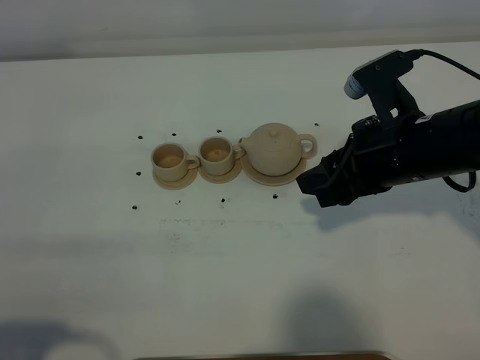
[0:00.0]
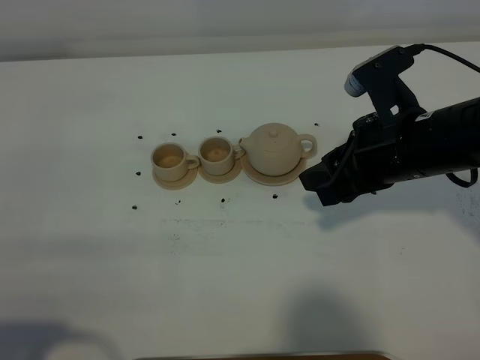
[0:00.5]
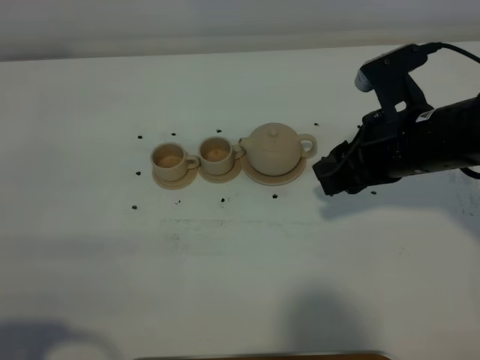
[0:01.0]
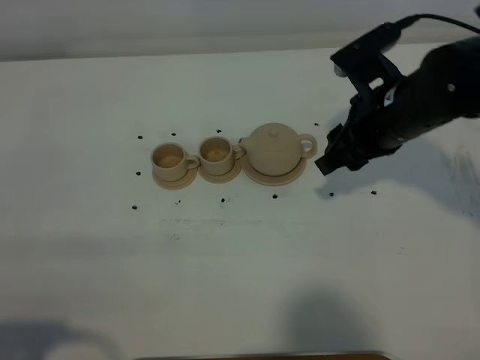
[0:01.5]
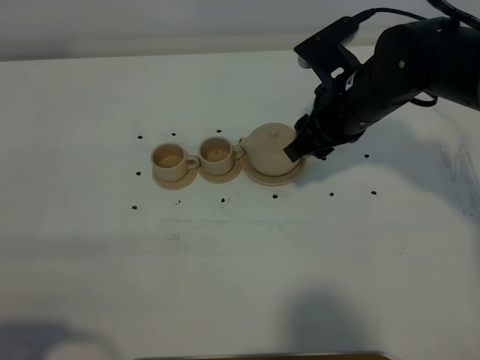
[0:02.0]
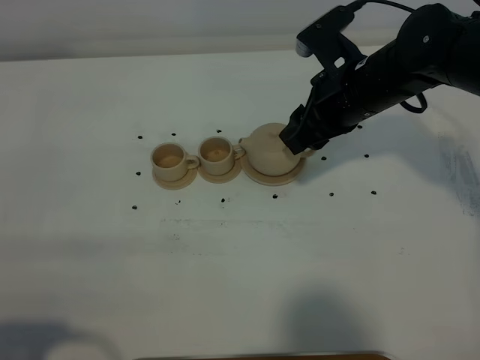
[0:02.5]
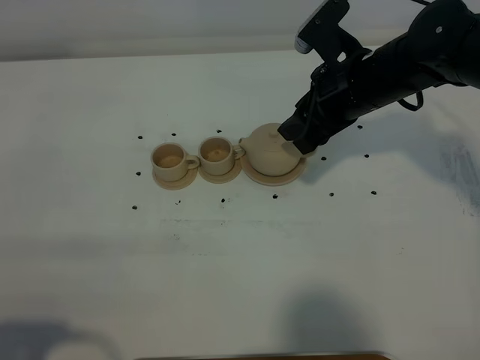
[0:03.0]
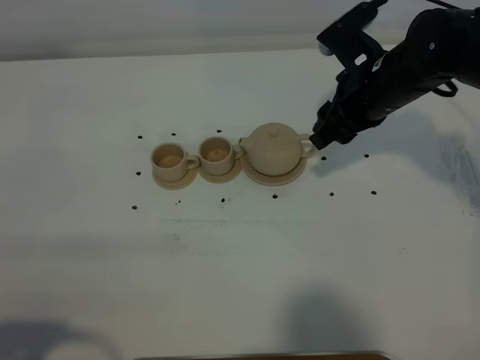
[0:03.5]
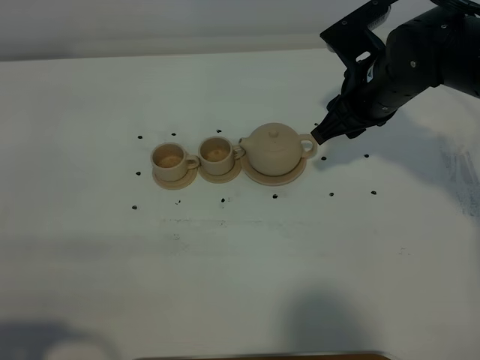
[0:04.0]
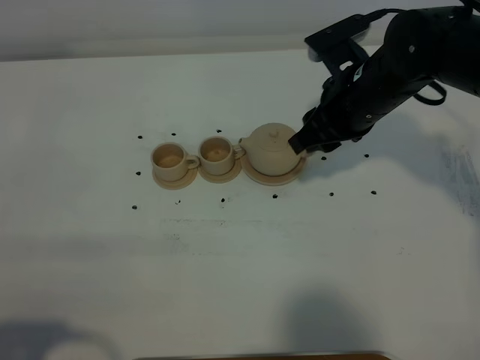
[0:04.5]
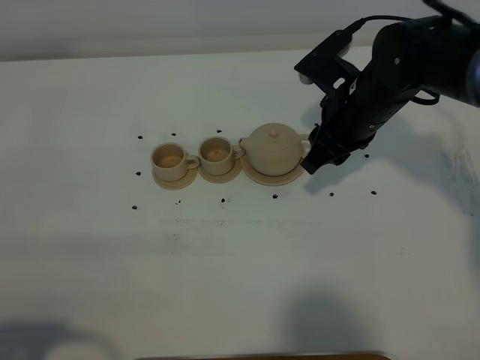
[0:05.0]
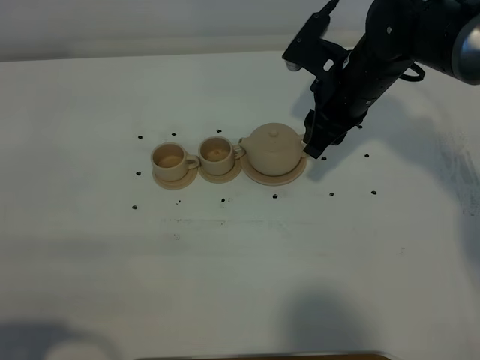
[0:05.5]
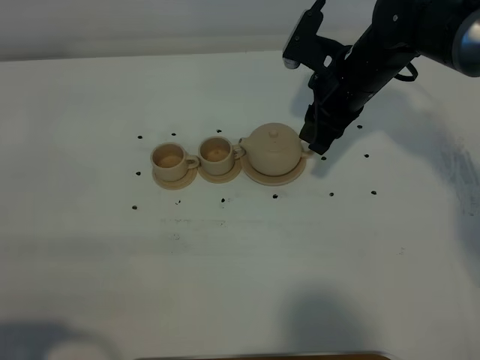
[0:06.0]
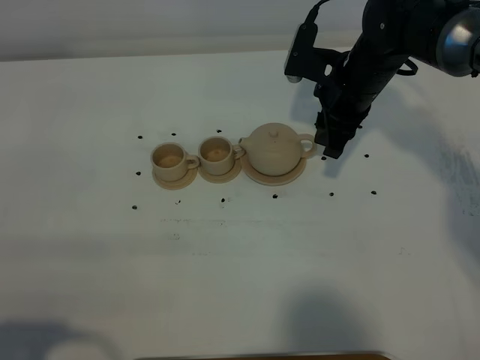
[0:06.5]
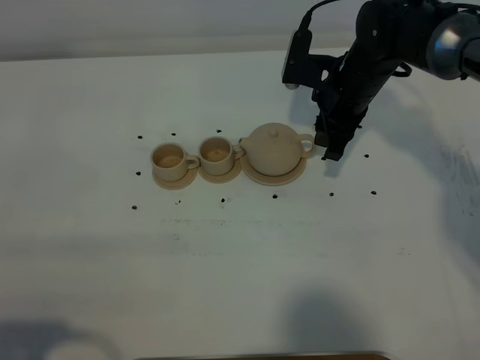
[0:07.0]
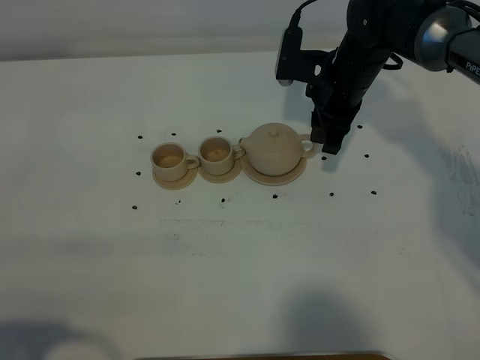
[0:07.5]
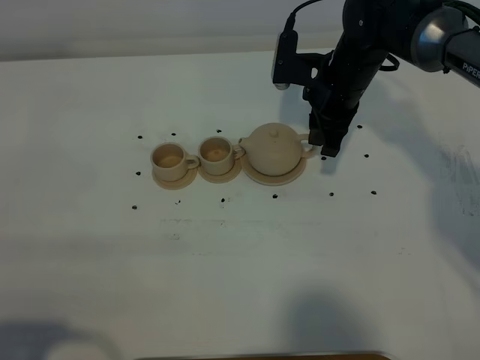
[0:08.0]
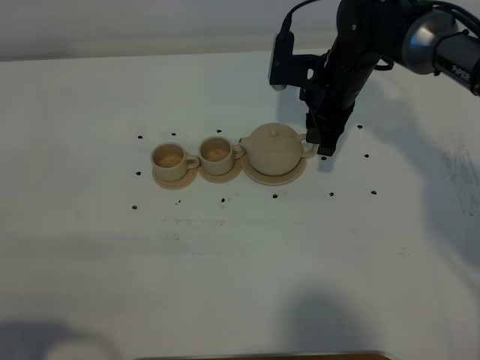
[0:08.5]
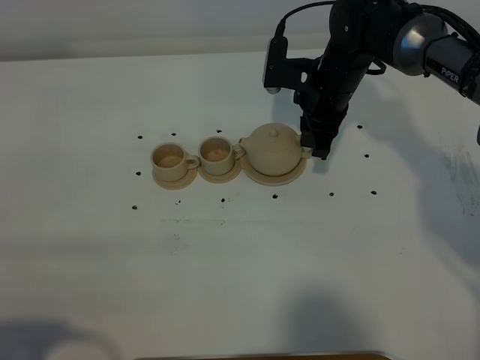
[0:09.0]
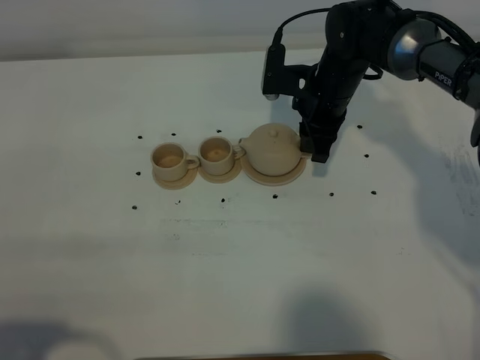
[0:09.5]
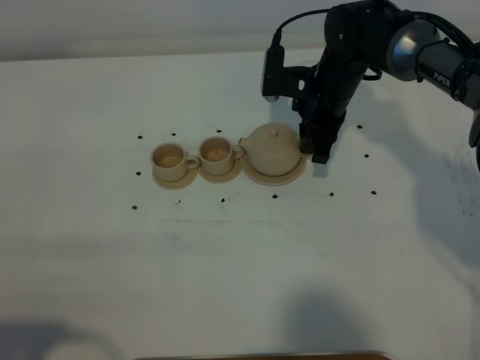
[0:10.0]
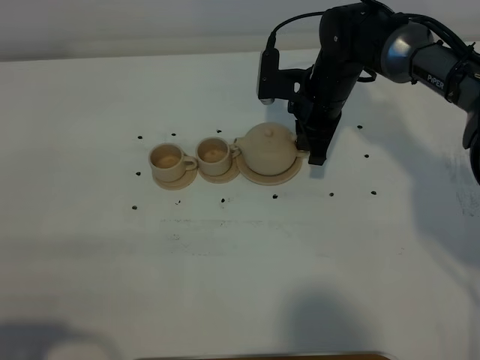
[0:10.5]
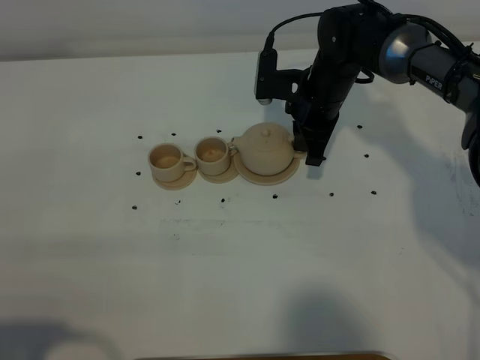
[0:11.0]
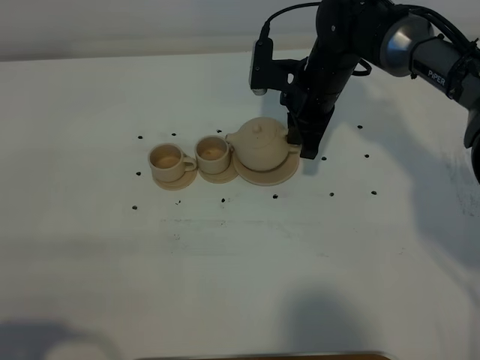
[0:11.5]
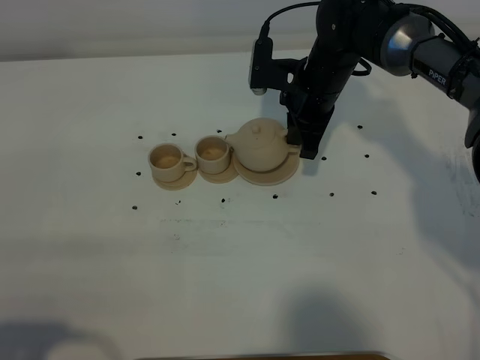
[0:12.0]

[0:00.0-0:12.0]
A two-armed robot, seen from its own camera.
Task of the whole recording: grasp the brown teapot and pour the tea into the two brown teacups one by one, put the brown teapot back in its original place.
0:00.0 to 0:02.0: The right gripper shifts approximately 10 cm forward.
0:02.0 to 0:04.0: The grippers stay close to where they were, moving slightly.
0:06.0 to 0:08.0: The grippers move only a little.
0:08.0 to 0:10.0: There are only small adjustments of the grippers.
0:10.0 to 0:12.0: The right gripper closes.

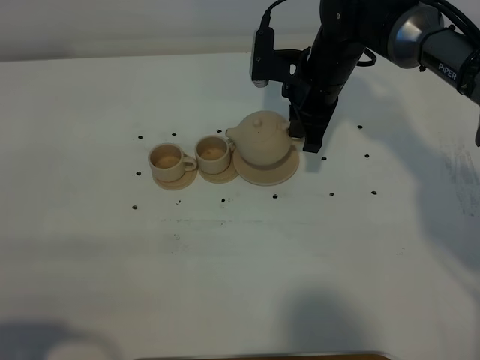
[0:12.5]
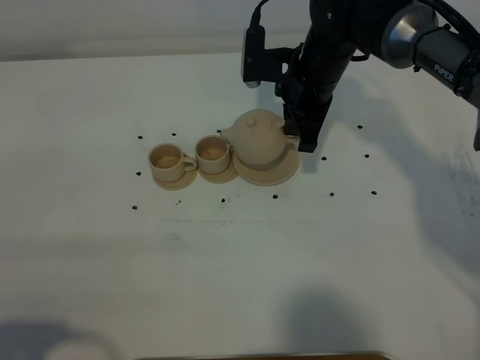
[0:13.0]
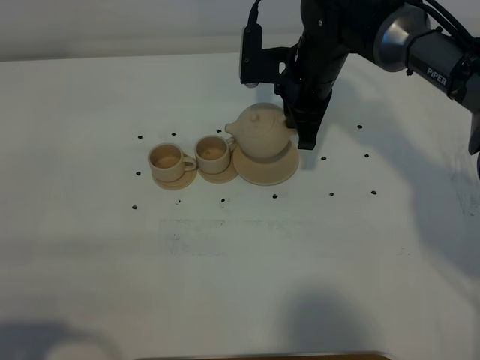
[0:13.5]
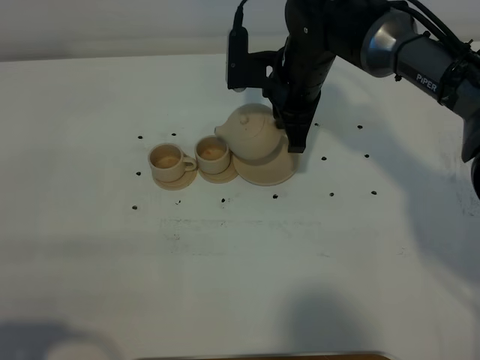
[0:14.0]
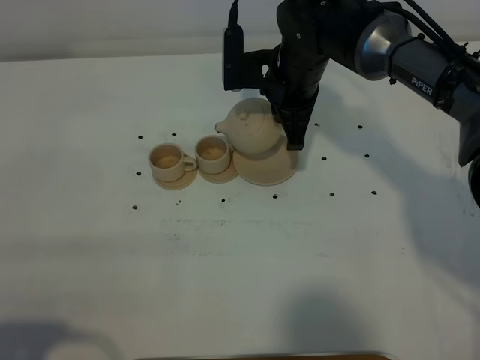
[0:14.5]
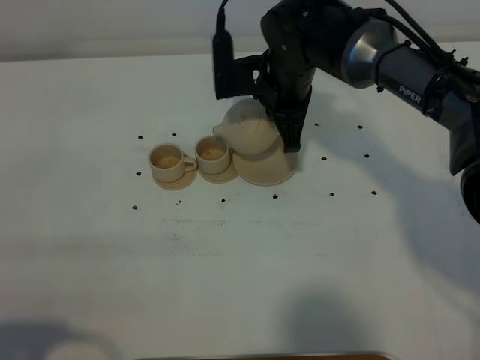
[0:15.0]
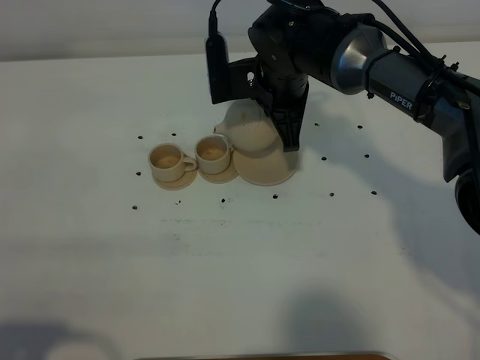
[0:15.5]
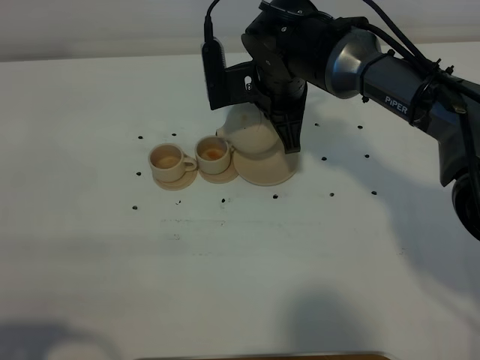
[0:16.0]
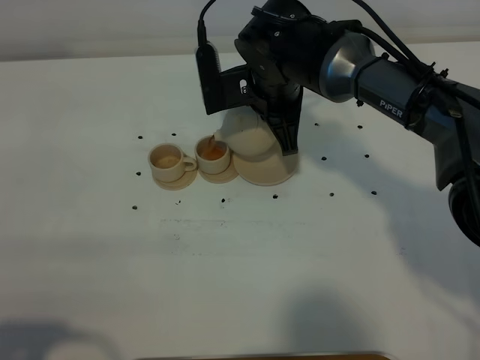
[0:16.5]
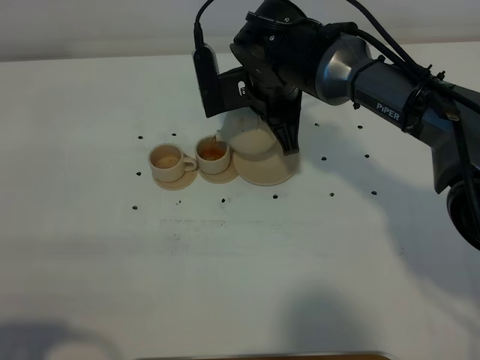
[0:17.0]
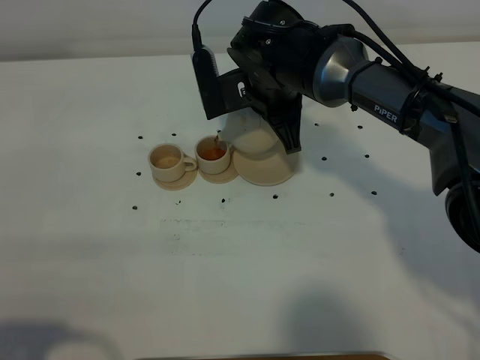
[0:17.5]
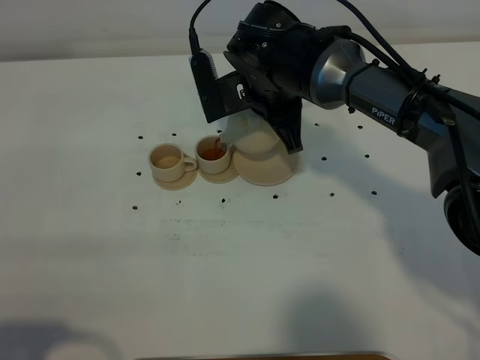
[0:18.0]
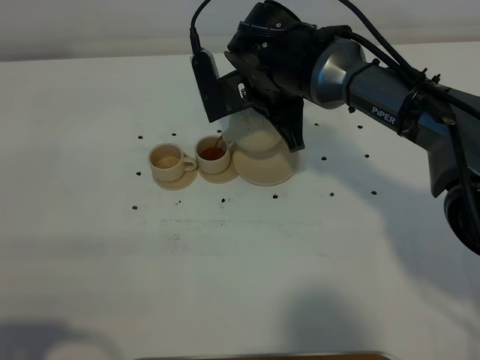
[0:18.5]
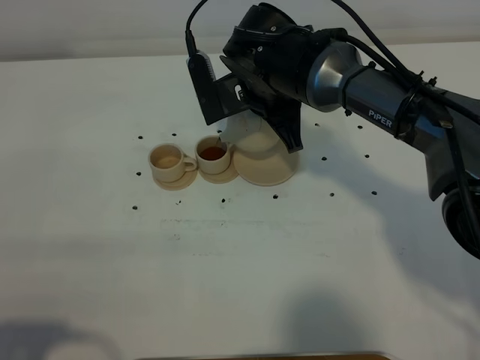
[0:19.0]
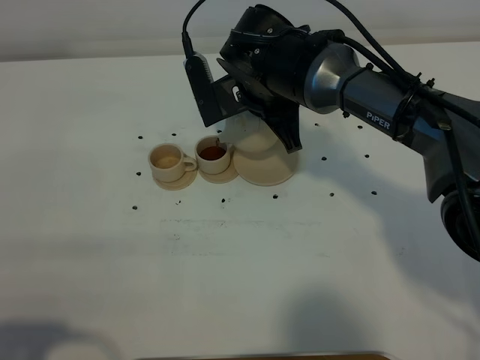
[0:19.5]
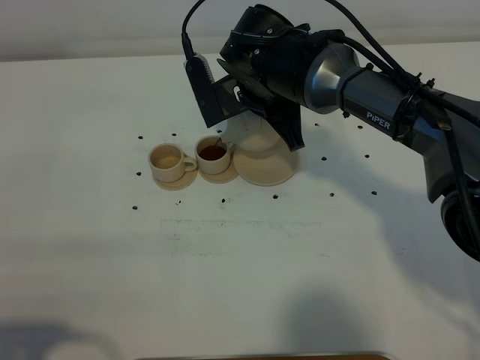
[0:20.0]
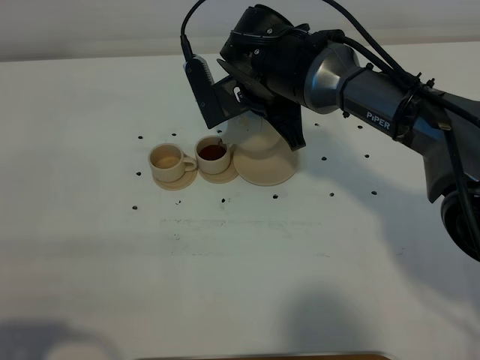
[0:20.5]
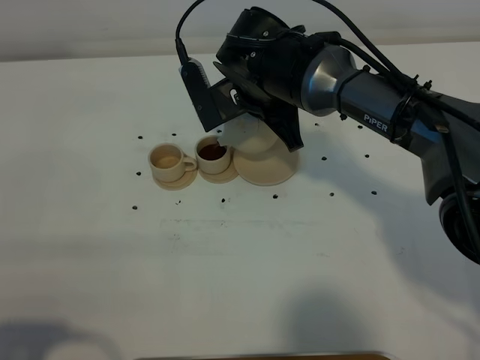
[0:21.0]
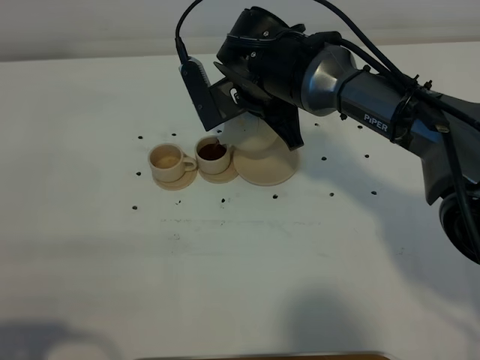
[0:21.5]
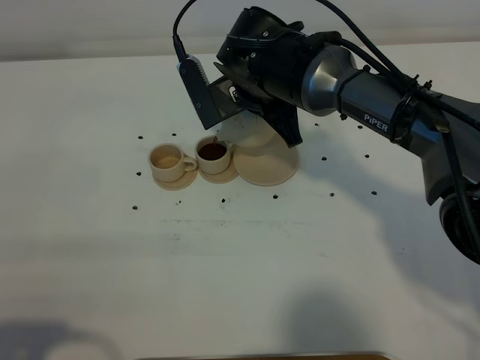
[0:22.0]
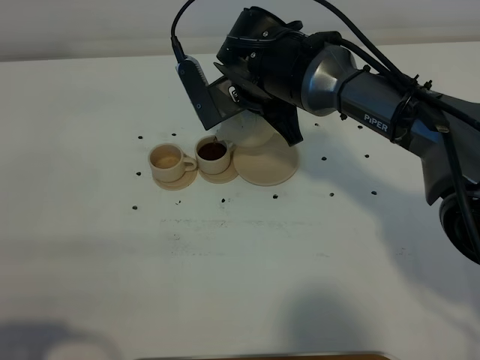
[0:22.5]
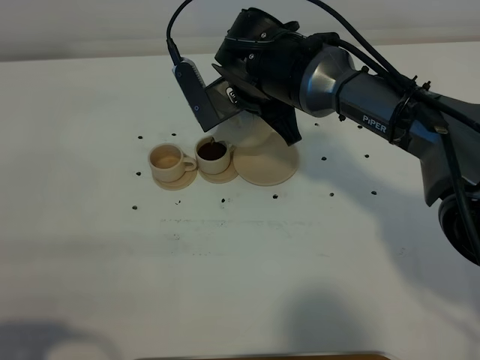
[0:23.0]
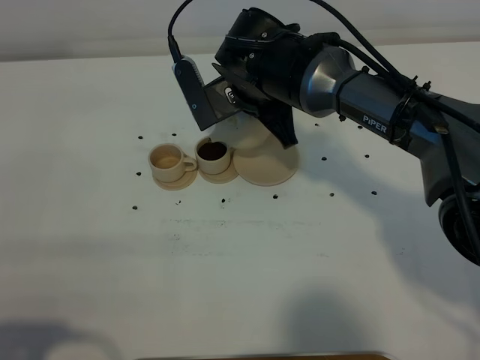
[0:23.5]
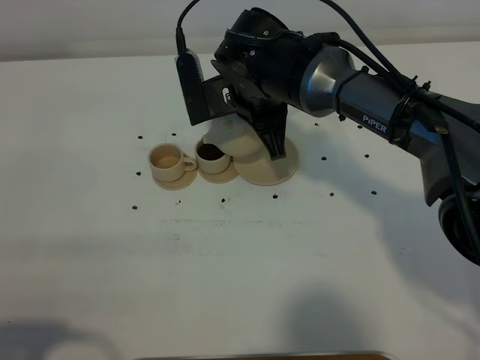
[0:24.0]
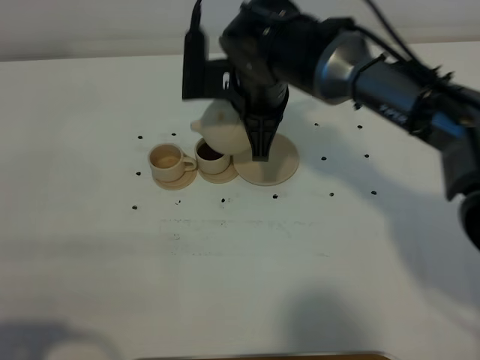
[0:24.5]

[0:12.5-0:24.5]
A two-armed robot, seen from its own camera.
Task of the whole recording: grasp the brown teapot and pour the tea into the two brown teacups one by one, put the brown teapot back in its original place.
Step, 0:12.5 to 0:24.0: Pour tea into the teacup with the right gripper.
0:12.5 to 0:14.5: The grippers make only small movements.
0:14.5 to 0:16.5: There are only small adjustments of the grippers.
0:16.5 to 0:20.5: The grippers make only small movements.
0:20.5 to 0:22.5: Both grippers stay put.

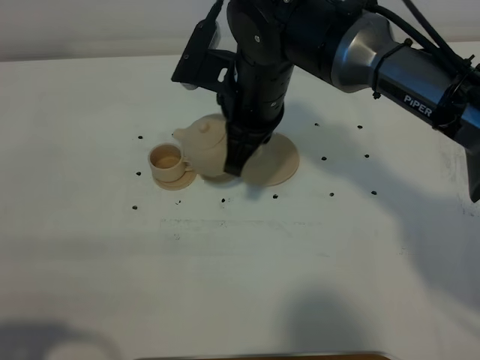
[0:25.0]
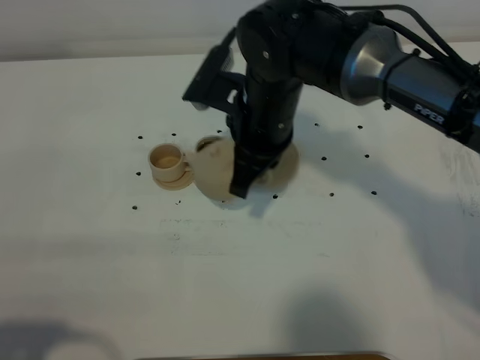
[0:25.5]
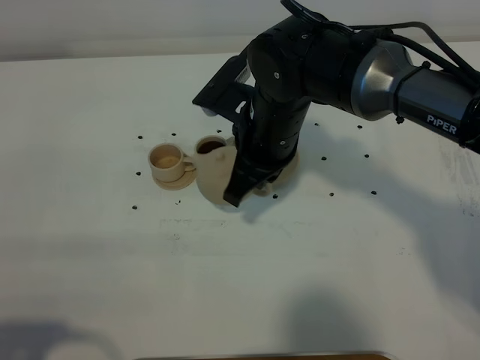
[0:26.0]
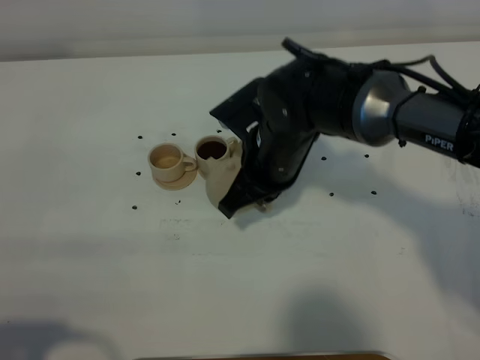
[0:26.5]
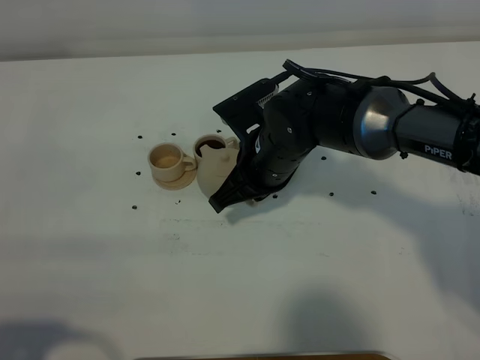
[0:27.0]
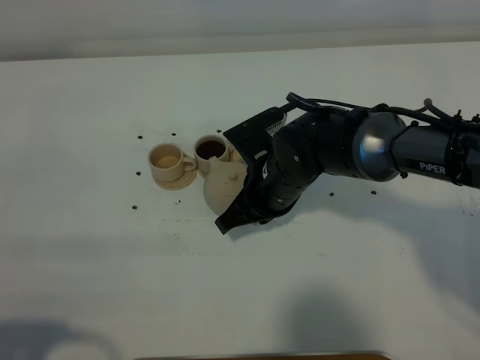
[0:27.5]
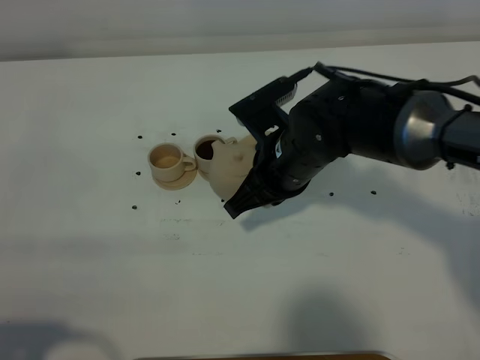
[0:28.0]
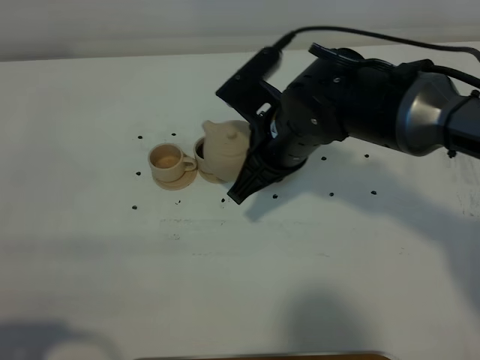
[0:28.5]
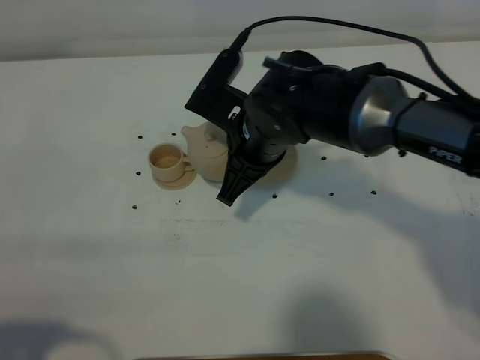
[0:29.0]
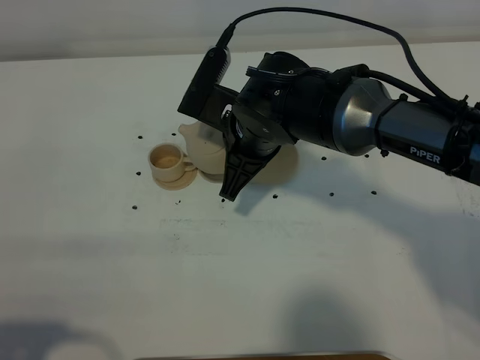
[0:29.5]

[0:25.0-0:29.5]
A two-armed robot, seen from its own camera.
Task of the whole recording: grasp the brown teapot and pour the tea into the two brown teacups one by one, put the brown teapot back in its original place.
0:25.0 to 0:27.0: The right gripper moves downward, about 10 cm.
